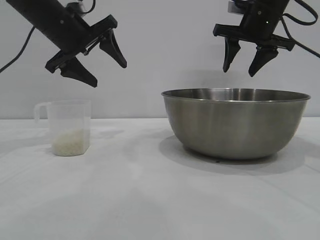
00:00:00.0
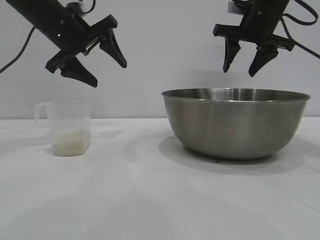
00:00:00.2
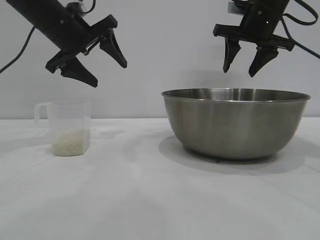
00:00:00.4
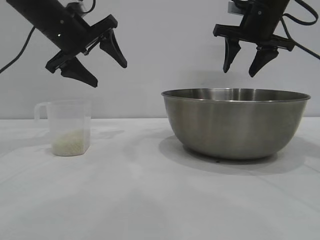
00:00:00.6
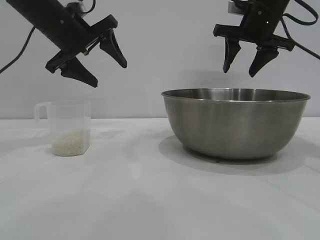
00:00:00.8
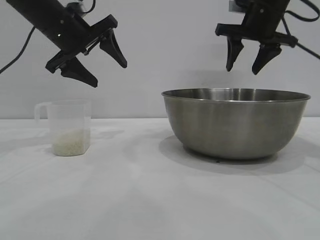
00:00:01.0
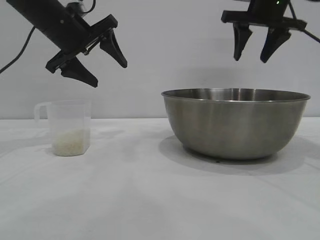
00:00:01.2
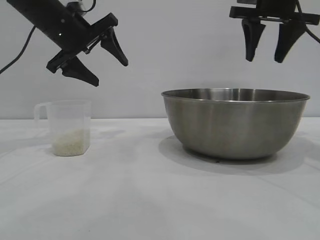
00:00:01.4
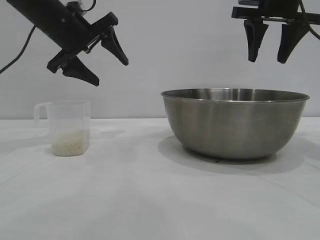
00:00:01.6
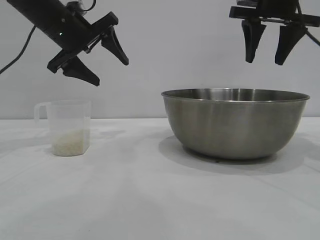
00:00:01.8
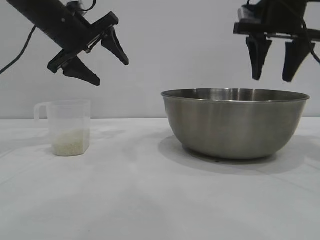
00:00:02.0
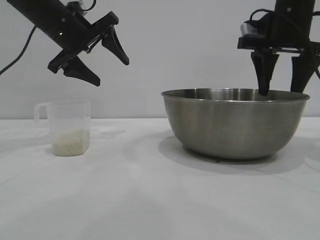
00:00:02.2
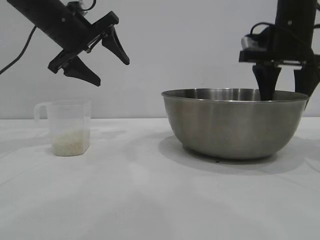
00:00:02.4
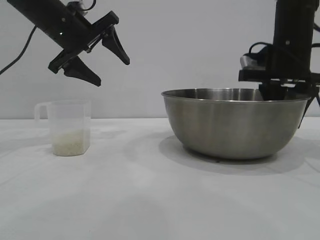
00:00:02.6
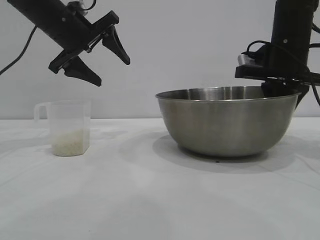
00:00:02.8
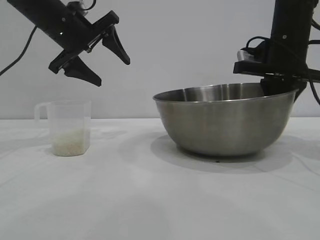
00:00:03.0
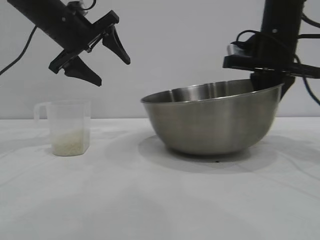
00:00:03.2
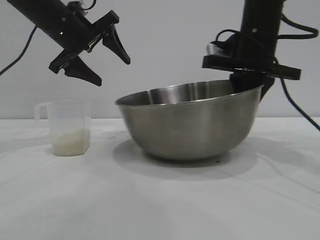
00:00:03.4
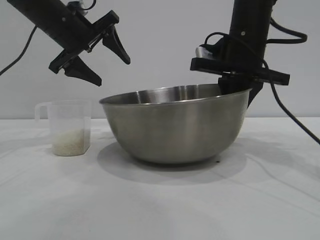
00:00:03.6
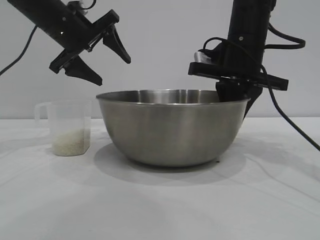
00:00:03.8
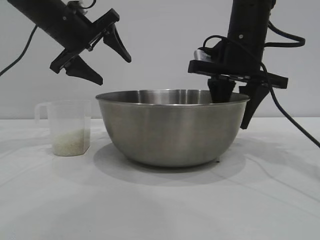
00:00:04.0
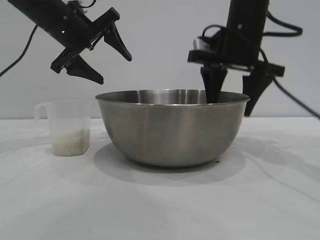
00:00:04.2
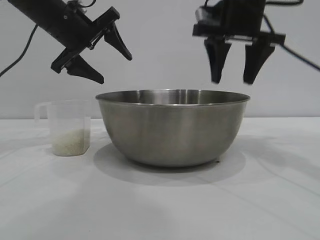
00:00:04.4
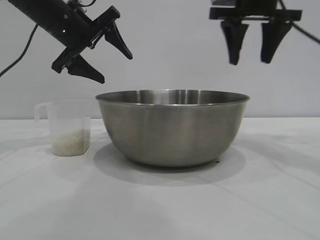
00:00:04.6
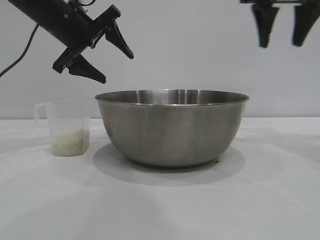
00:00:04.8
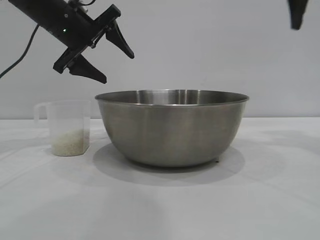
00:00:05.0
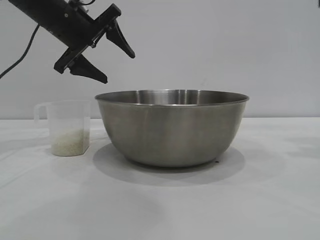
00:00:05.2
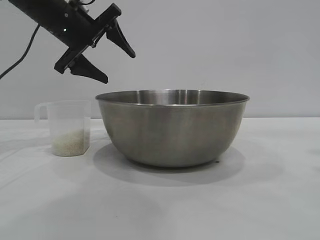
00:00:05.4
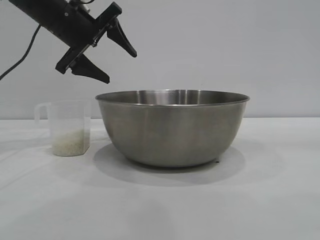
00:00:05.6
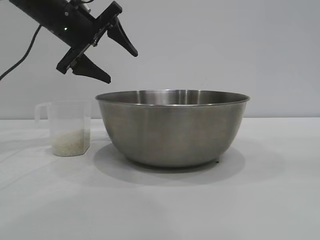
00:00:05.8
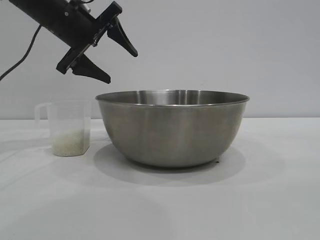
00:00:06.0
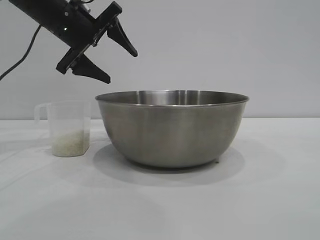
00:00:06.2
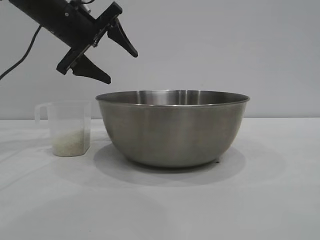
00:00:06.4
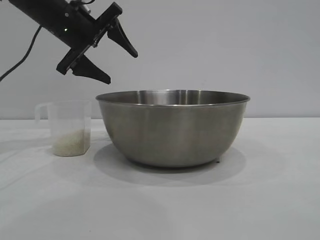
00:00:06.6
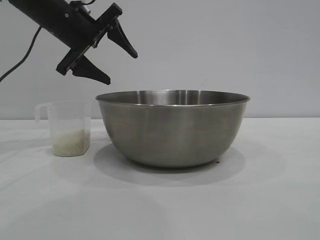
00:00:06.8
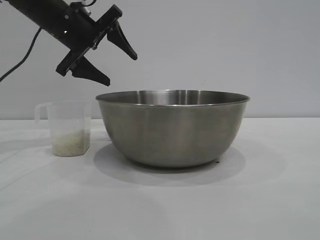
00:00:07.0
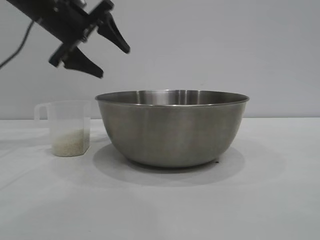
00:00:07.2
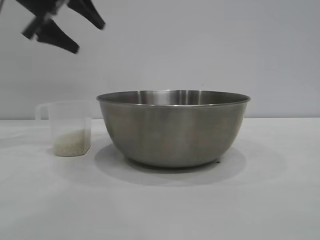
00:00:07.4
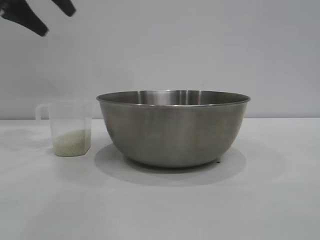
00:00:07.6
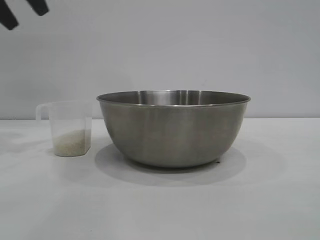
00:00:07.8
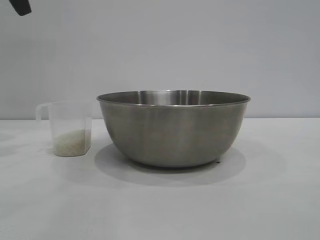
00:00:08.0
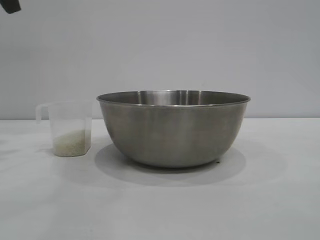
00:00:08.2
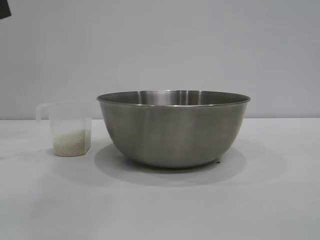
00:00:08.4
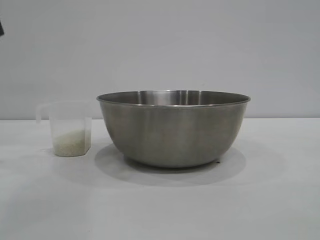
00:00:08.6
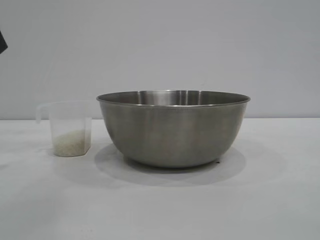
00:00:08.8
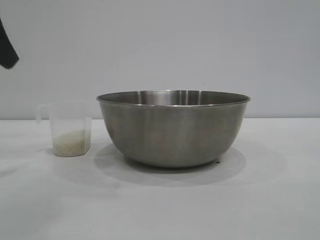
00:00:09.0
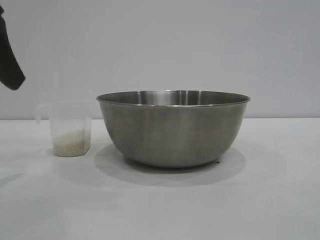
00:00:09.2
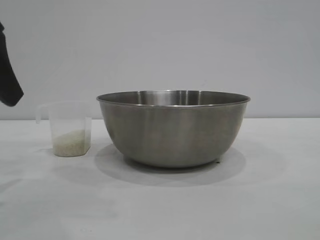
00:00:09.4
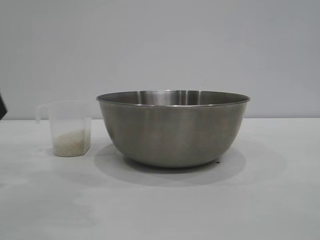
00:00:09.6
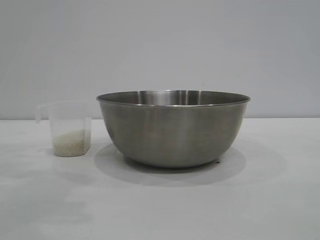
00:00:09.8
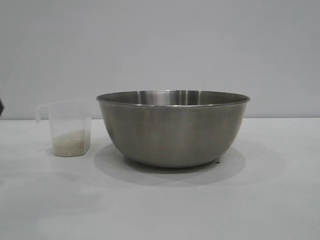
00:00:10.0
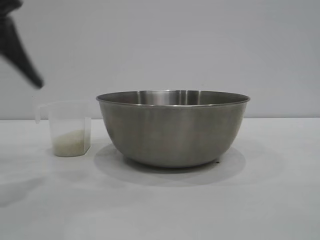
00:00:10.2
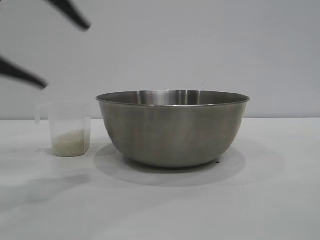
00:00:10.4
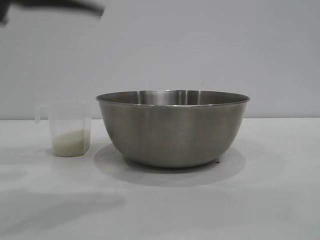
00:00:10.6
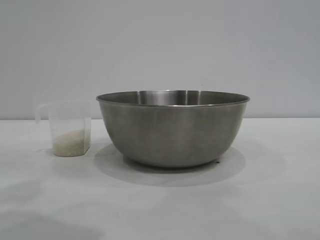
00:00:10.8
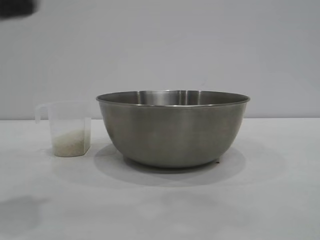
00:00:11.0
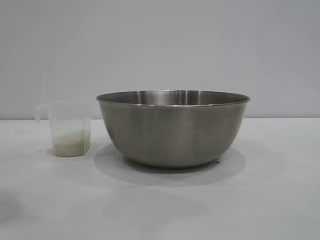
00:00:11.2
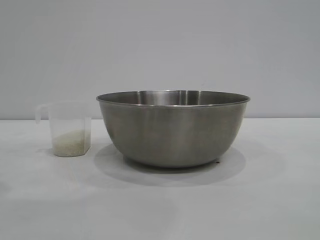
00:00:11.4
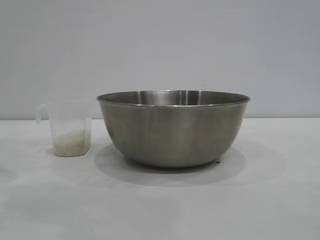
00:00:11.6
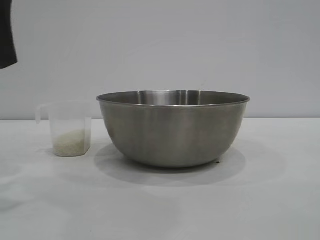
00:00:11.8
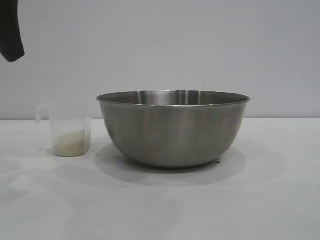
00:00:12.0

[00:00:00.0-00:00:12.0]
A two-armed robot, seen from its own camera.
Task of the whole recording: the right gripper grasp the rice container and place it in the center of the table, the left gripper grasp the rice scoop and pour the rice into the rice container.
Step, 00:00:00.0 to 00:00:04.4: Move the bowl to the center of view with the right gripper.

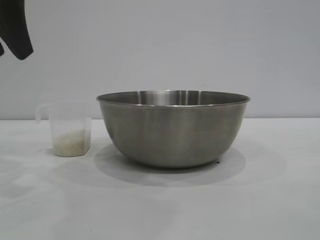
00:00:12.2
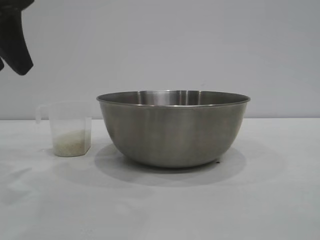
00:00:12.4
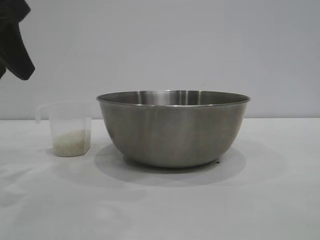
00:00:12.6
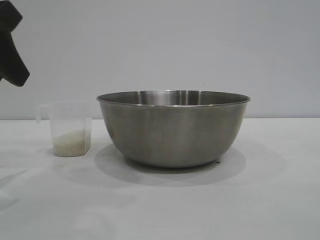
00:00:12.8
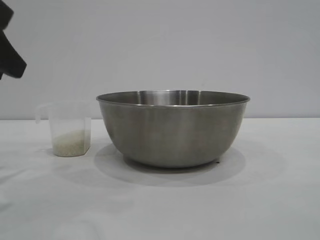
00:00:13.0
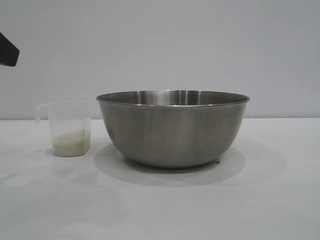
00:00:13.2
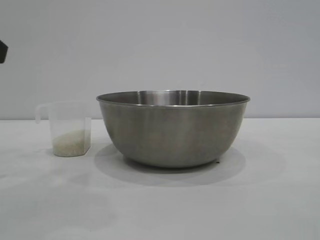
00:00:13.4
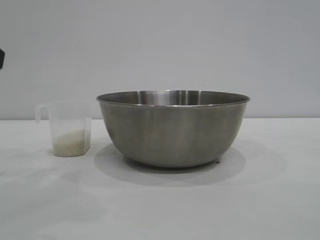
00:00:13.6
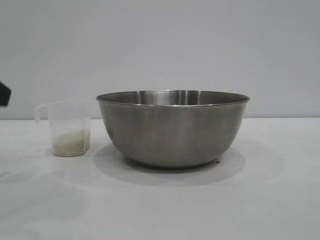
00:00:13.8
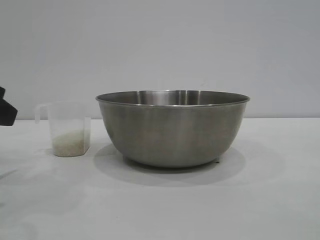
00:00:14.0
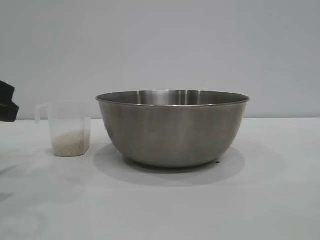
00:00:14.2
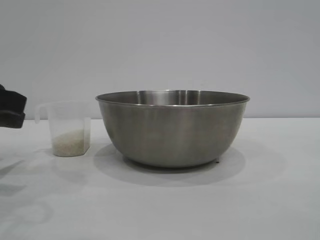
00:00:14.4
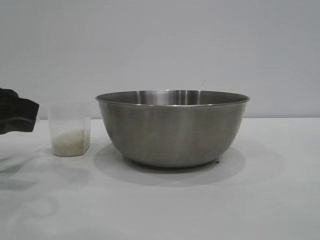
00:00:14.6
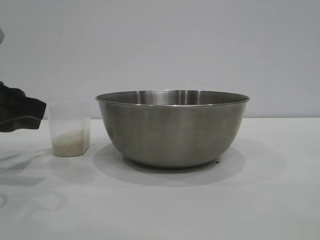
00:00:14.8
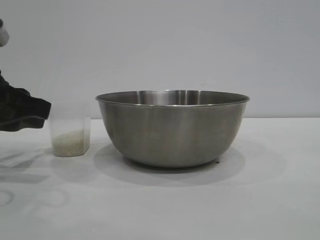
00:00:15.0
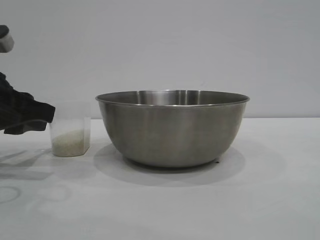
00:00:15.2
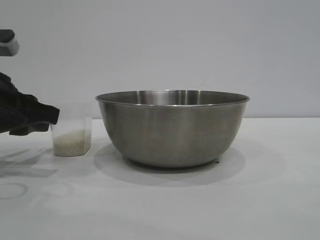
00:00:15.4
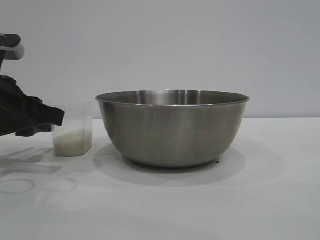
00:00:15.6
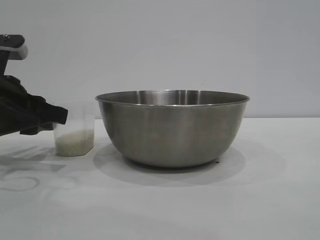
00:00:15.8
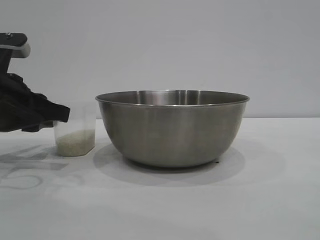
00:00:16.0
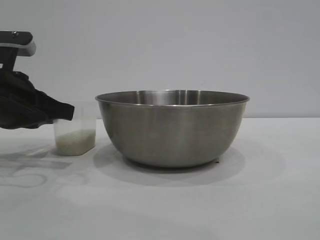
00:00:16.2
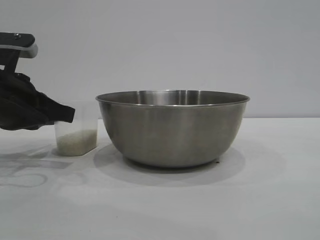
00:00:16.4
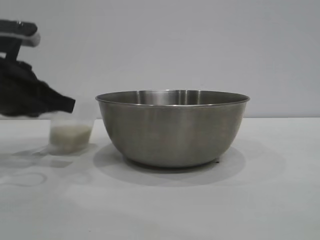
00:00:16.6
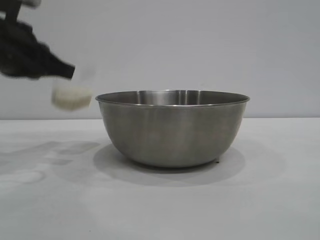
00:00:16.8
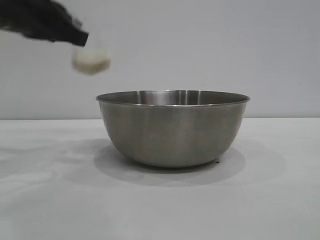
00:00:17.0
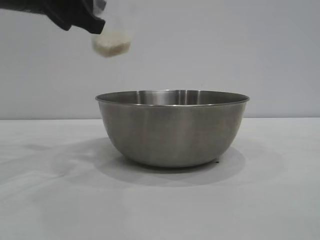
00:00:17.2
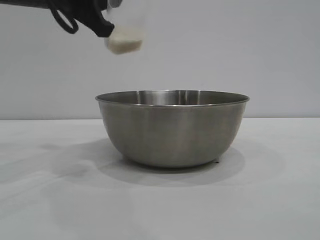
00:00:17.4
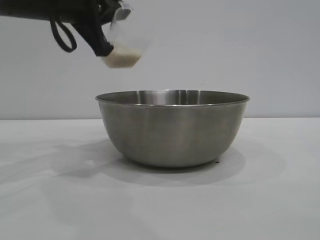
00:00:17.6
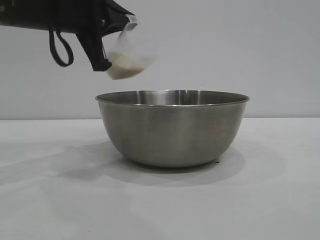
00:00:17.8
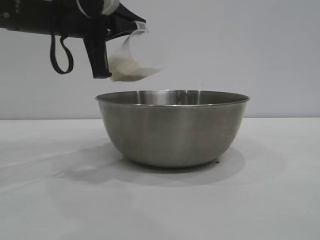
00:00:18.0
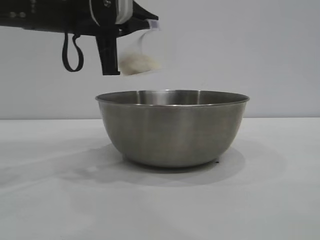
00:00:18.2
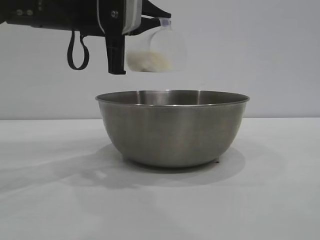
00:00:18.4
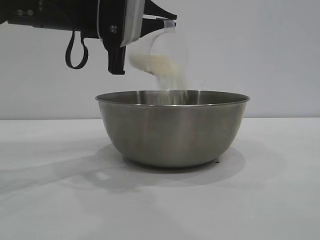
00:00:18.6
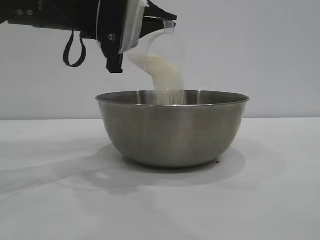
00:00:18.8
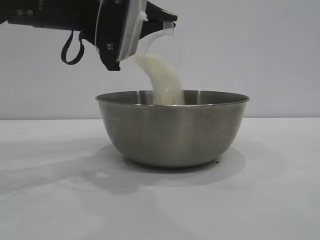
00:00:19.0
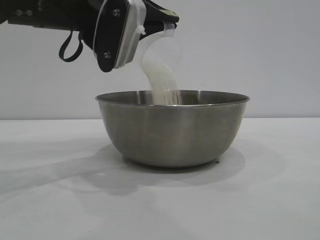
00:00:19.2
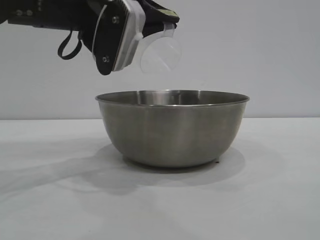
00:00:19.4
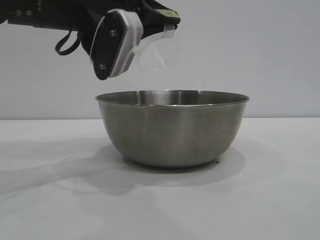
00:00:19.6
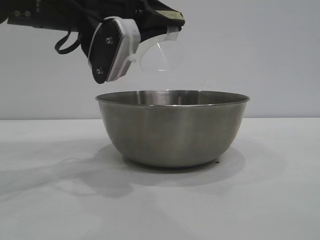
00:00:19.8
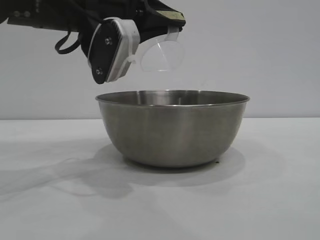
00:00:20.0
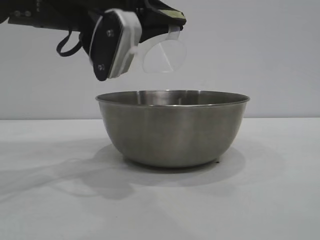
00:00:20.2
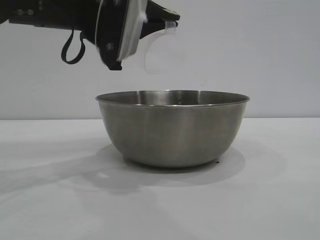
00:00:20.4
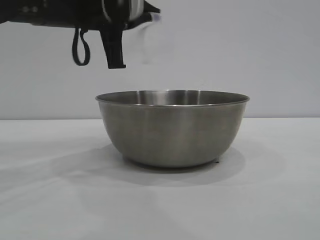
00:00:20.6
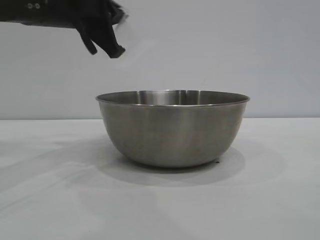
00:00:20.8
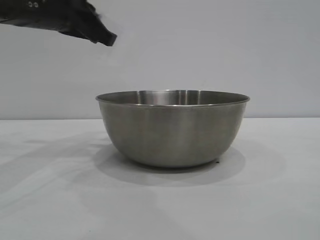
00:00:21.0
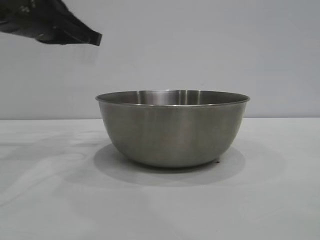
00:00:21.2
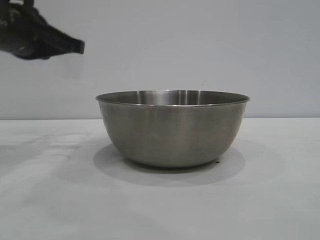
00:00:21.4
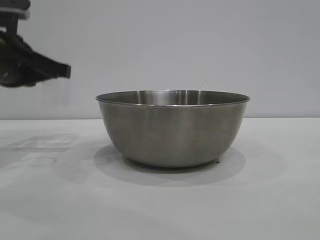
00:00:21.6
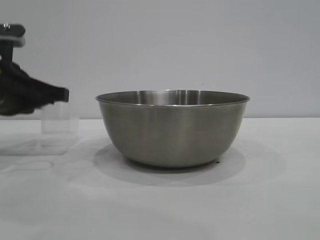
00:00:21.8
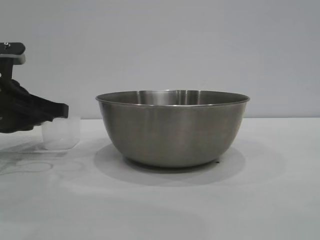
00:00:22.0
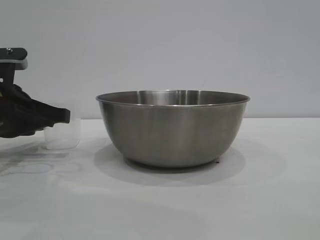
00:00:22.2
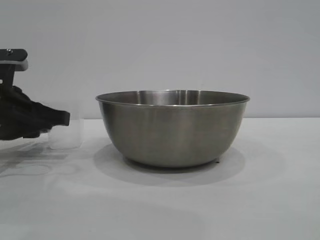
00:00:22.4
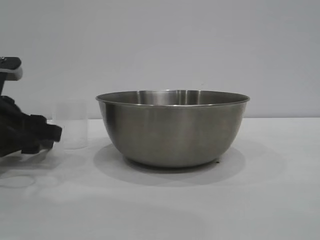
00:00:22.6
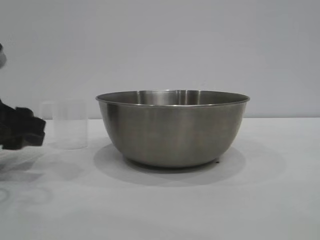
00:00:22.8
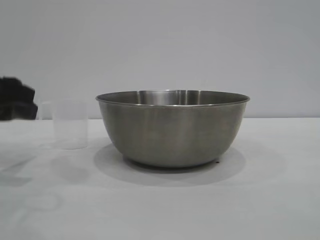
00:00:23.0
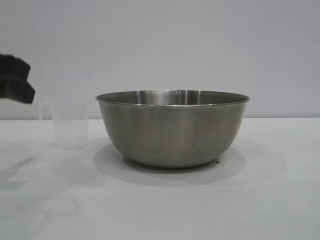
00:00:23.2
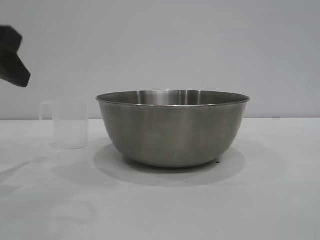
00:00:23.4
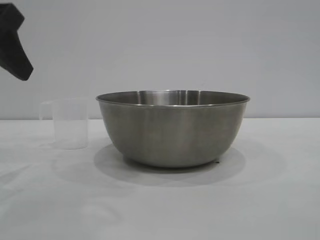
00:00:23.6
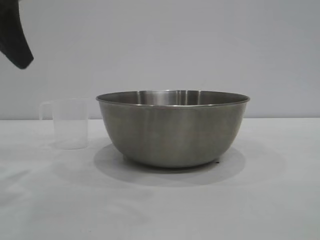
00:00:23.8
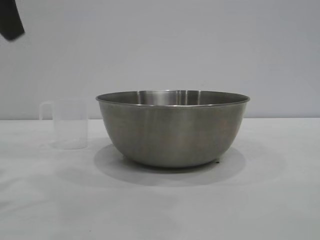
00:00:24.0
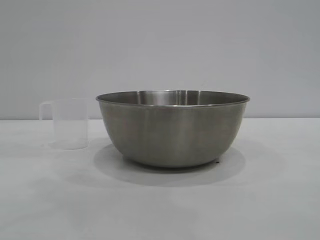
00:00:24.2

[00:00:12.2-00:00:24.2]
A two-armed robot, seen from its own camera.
Task of the whole recording: the right gripper grasp the rice container and place it in the center of the table, the left gripper grasp the rice scoop and pour the rice into the rice container.
Step, 00:00:12.2 to 00:00:16.4: Pick up the cup with rice in it with the left gripper.
Step, 00:00:16.8 to 00:00:20.4: Pour the rice from the cup into the bowl with the left gripper.
Step, 00:00:20.6 to 00:00:23.2: Place the cup on the table with the left gripper.
